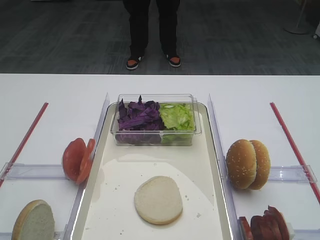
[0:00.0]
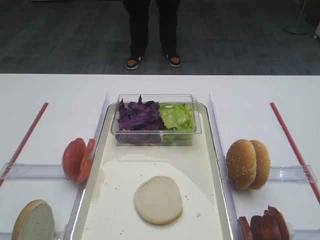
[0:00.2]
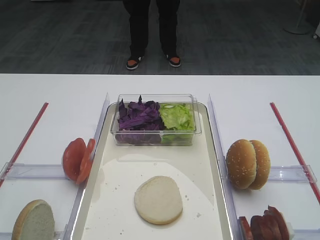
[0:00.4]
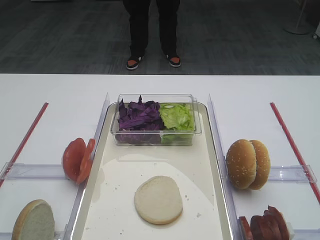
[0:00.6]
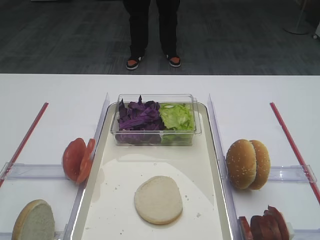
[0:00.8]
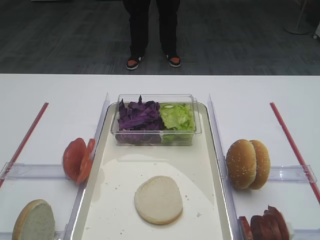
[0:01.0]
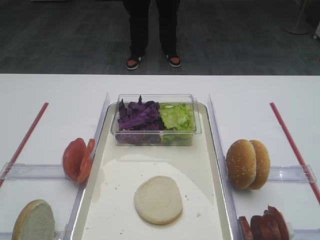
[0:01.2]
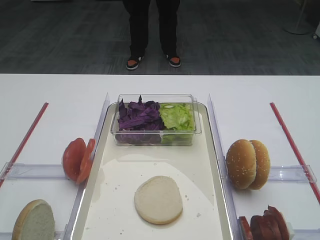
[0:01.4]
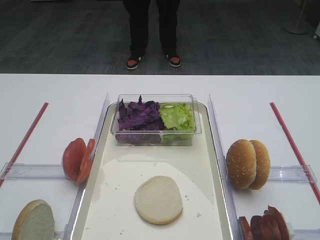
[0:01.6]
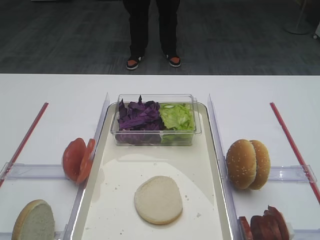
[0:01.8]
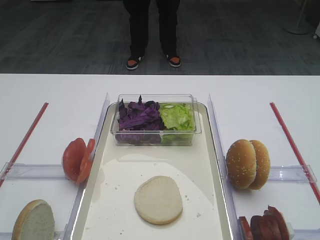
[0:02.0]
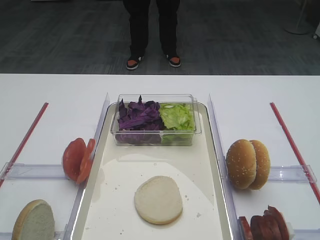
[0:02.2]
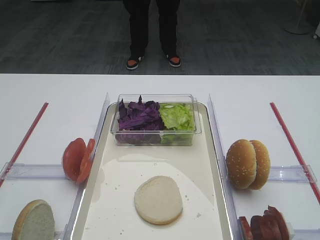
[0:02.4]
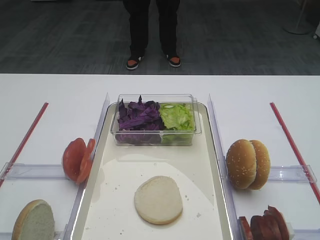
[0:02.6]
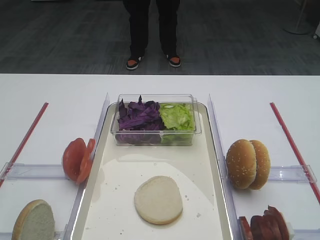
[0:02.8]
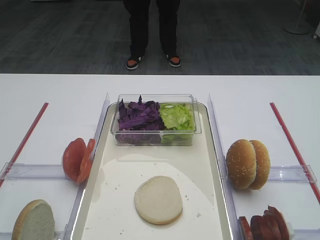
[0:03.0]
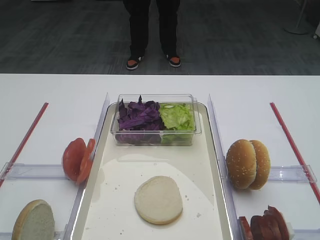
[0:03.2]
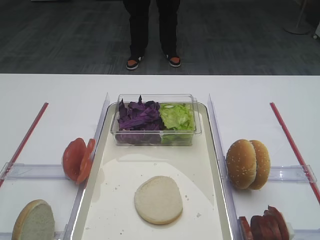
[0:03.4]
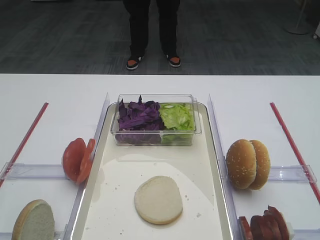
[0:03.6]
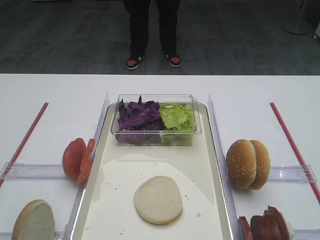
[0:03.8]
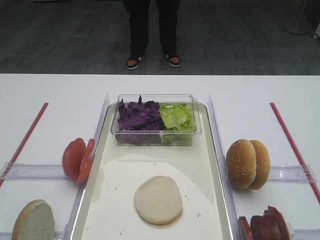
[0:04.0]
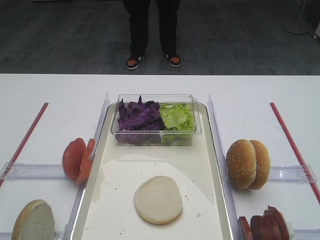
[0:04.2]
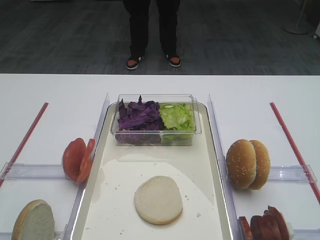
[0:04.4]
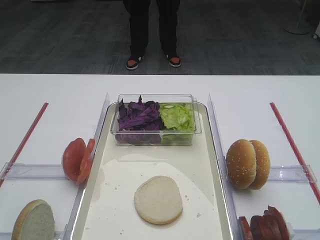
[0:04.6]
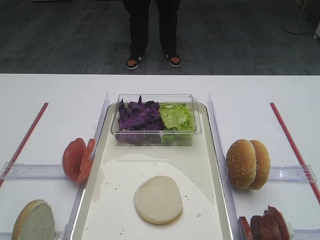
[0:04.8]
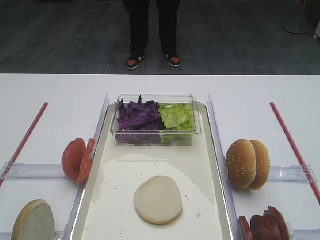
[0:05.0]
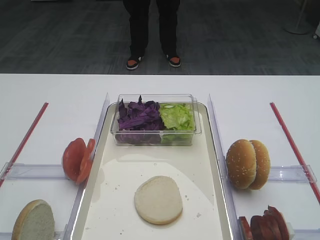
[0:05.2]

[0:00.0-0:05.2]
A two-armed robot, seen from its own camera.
1.8 to 5.2 s: The two grippers keep their place.

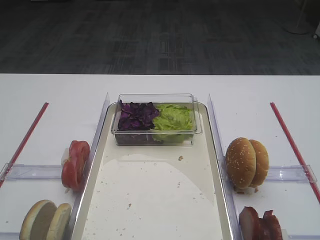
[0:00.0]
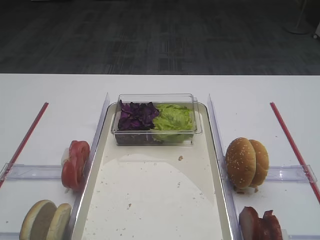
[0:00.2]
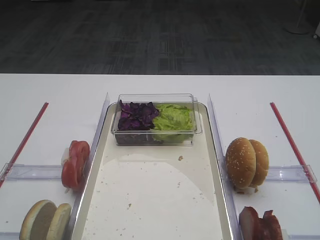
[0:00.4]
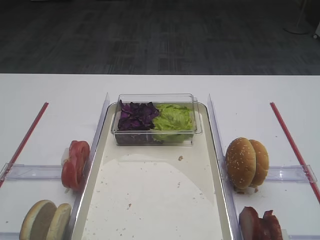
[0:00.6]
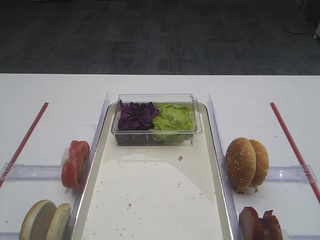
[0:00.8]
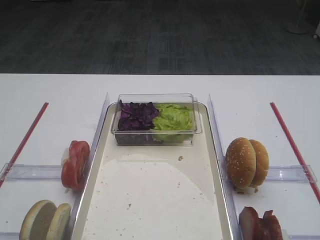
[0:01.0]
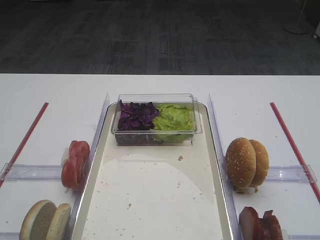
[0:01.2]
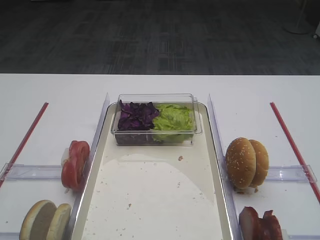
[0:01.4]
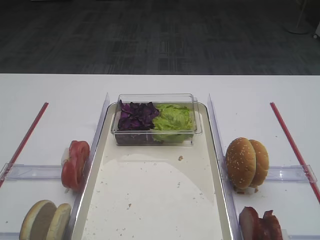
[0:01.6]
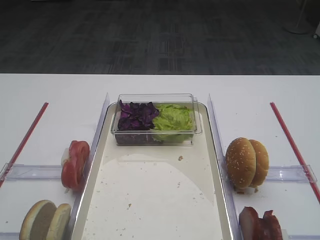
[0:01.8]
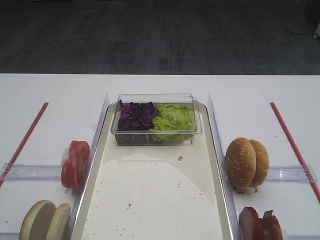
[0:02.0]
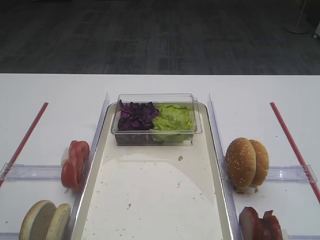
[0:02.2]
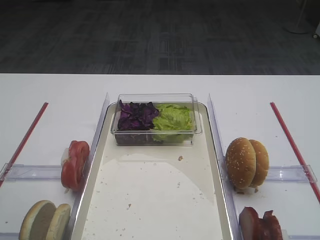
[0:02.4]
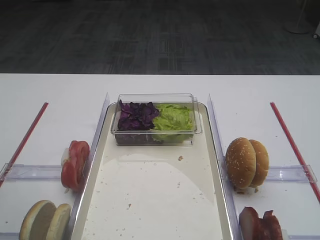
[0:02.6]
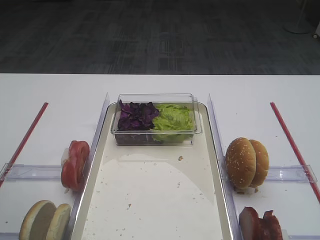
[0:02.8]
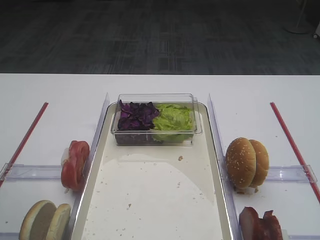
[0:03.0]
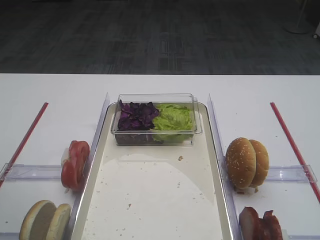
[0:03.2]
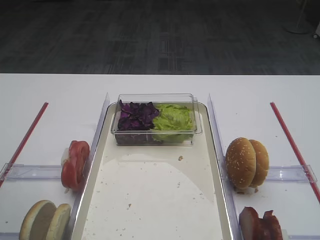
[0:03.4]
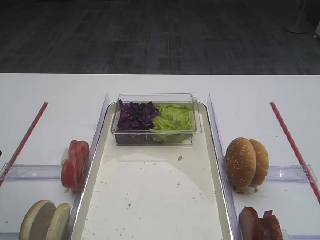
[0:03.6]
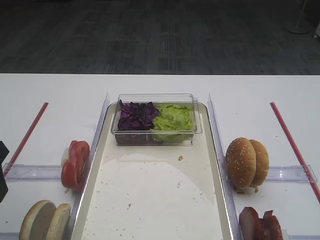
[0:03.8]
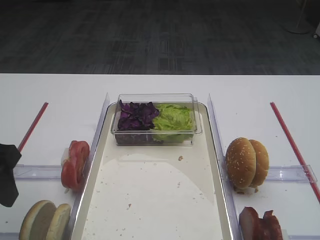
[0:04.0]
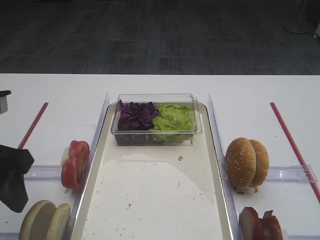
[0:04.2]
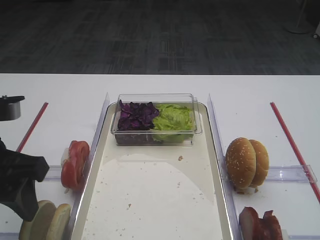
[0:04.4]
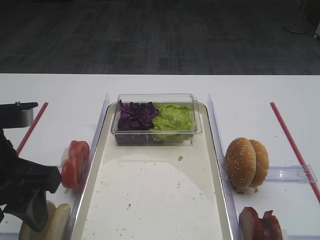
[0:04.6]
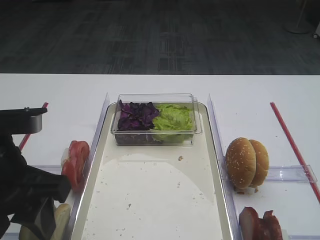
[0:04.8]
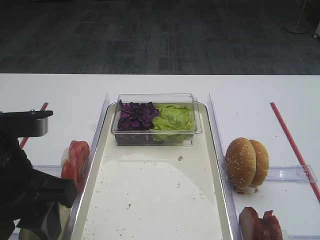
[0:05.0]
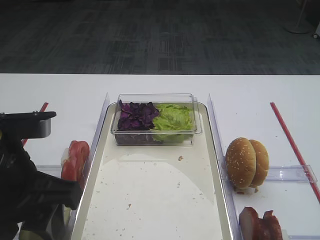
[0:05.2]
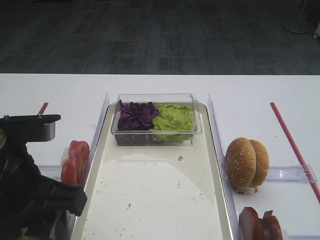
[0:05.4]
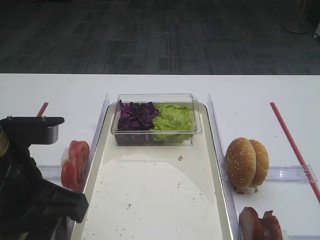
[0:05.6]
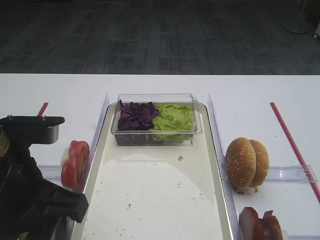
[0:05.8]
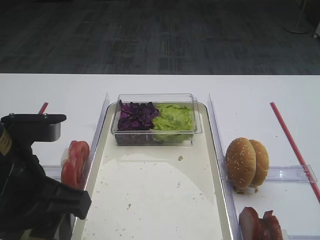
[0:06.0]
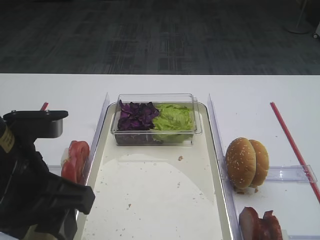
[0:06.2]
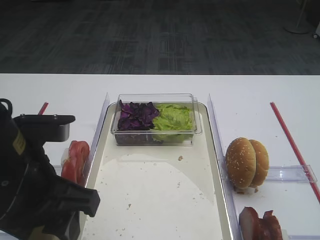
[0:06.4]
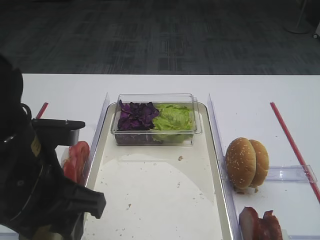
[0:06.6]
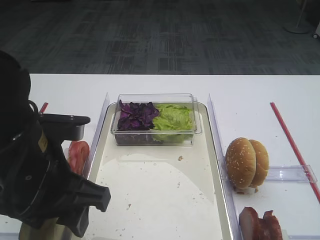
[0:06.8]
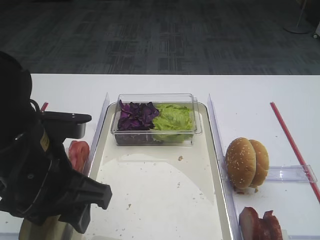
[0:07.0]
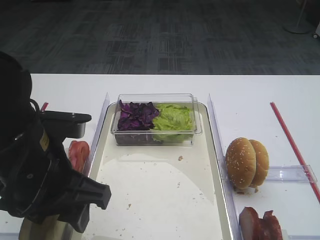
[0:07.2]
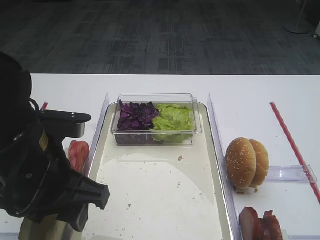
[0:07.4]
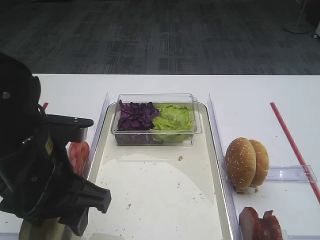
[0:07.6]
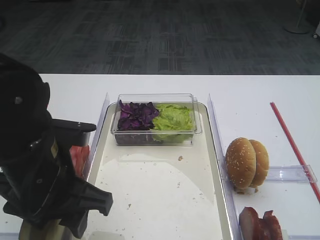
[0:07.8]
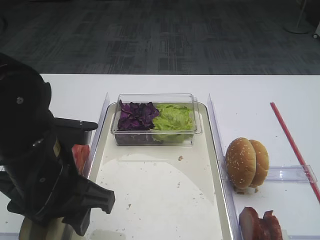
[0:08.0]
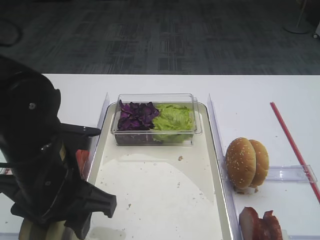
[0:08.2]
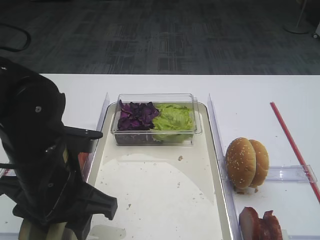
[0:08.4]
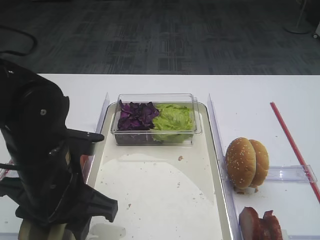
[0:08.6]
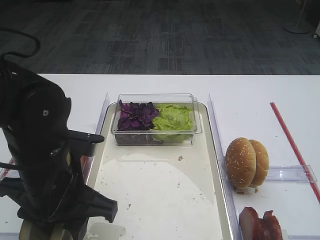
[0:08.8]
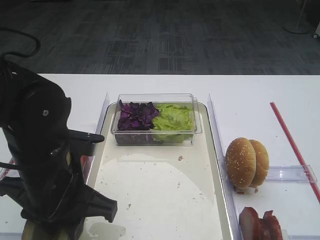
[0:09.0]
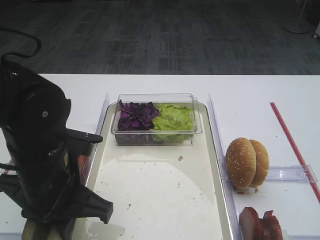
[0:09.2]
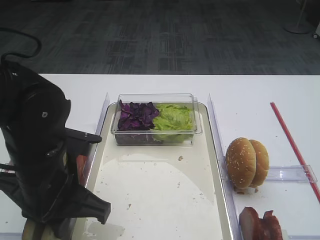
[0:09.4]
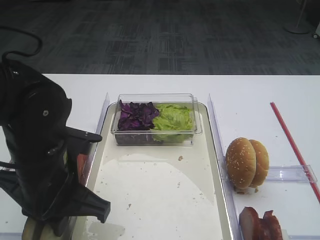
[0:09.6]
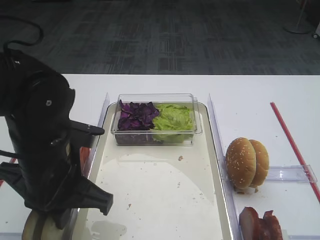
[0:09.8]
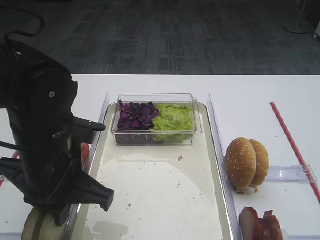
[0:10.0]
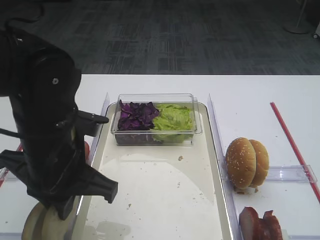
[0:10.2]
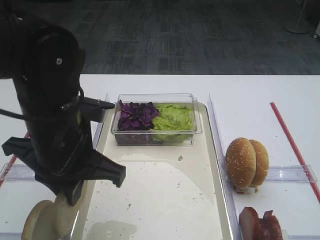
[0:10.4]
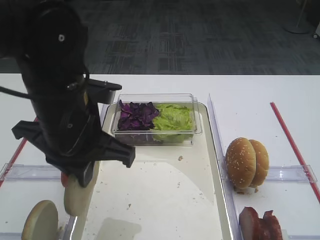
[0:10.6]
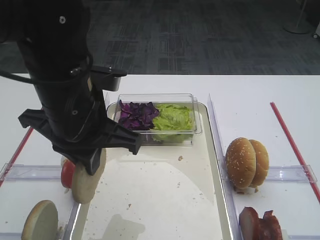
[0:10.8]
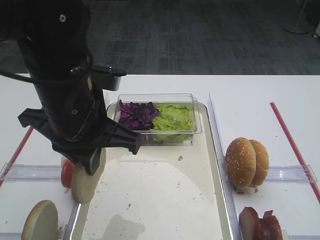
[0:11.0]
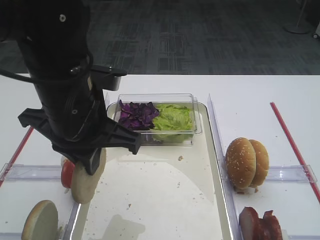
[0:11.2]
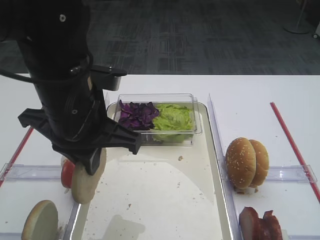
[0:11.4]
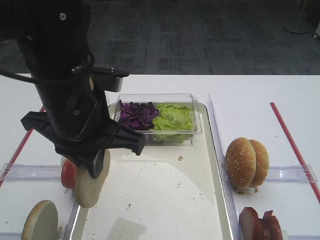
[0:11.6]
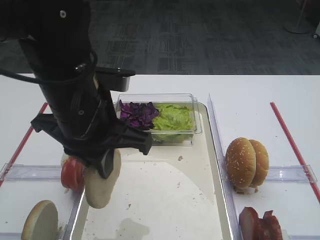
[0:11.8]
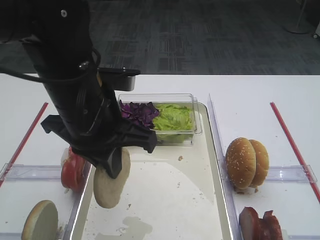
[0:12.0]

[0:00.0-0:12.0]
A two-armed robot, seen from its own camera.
Step, 0.0 to 10.2 s: Pick up the bread slice with the left gripper.
3.0 to 4.4 s: The left gripper travels to the right by some 5 cm.
4.4 to 6.0 s: The left gripper heads to the right, covering roughly 5 cm.
6.0 to 7.6 s: The grippers move only a little.
7.6 to 9.0 s: The grippers stay close to where they were, moving slightly.
9.0 to 10.4 s: The left gripper ends up roughly 5 cm from where it was, and closes its fingers.
10.4 to 12.0 s: The grippers make only small movements.

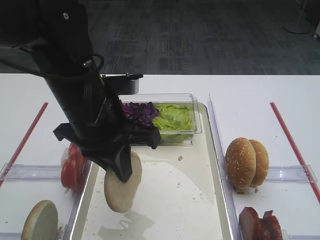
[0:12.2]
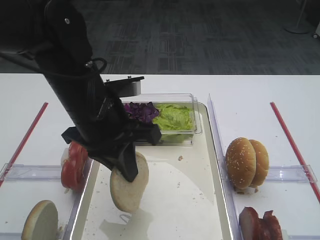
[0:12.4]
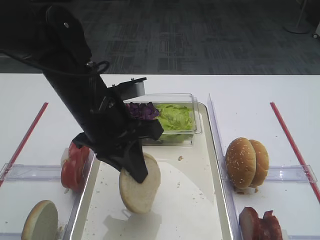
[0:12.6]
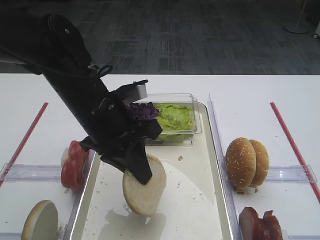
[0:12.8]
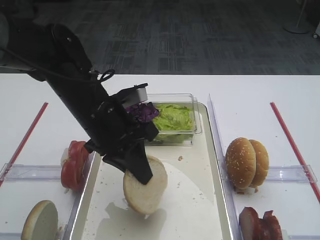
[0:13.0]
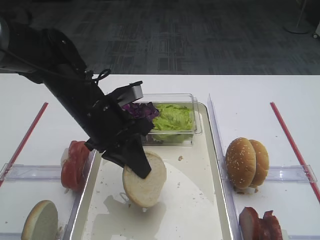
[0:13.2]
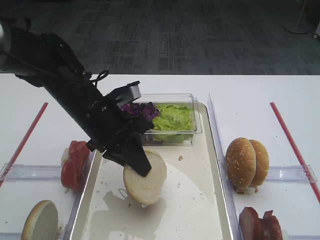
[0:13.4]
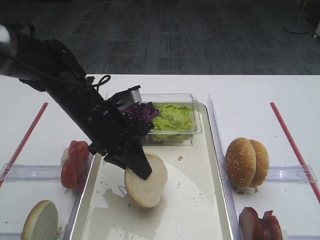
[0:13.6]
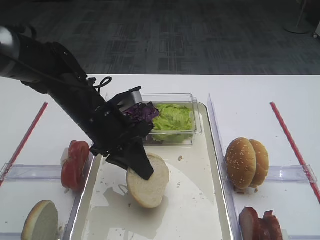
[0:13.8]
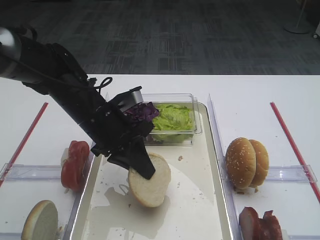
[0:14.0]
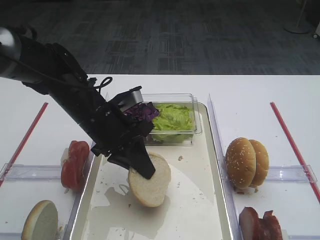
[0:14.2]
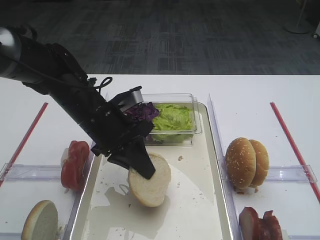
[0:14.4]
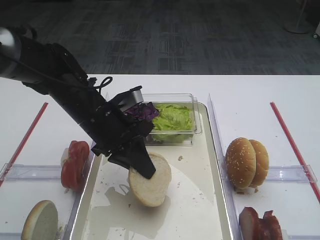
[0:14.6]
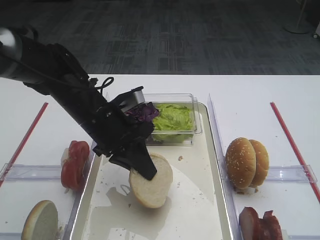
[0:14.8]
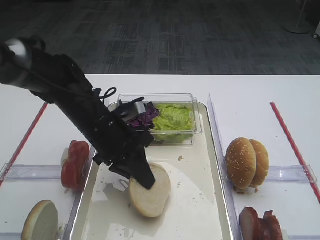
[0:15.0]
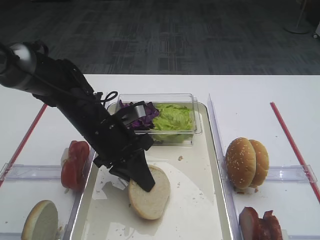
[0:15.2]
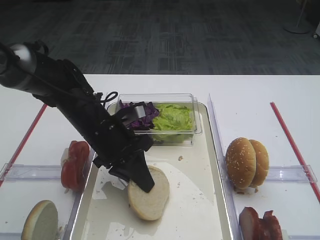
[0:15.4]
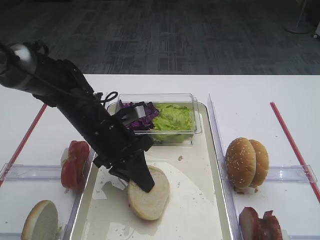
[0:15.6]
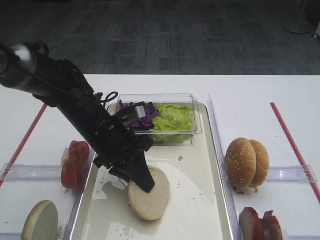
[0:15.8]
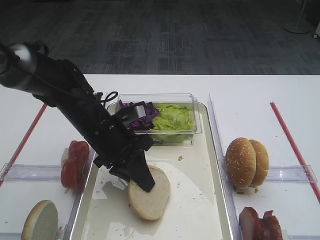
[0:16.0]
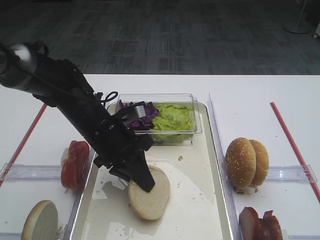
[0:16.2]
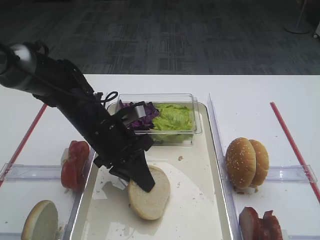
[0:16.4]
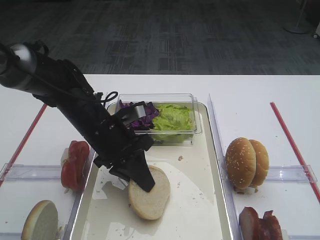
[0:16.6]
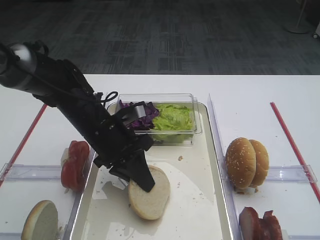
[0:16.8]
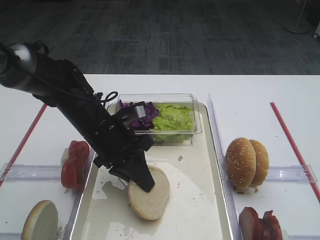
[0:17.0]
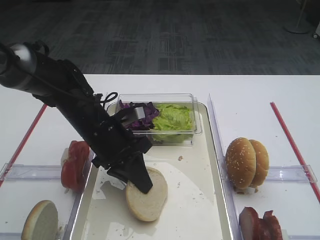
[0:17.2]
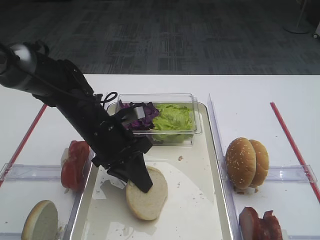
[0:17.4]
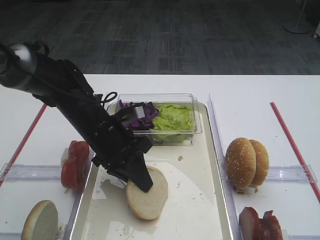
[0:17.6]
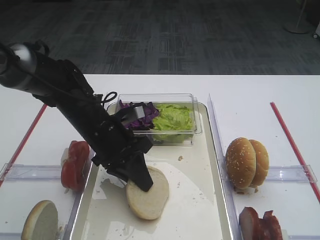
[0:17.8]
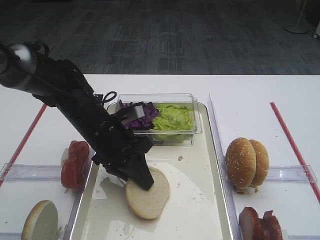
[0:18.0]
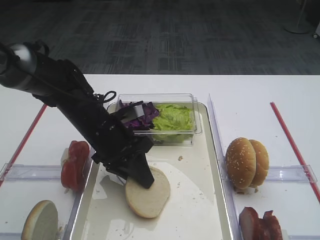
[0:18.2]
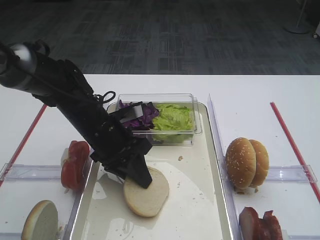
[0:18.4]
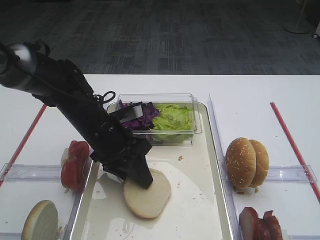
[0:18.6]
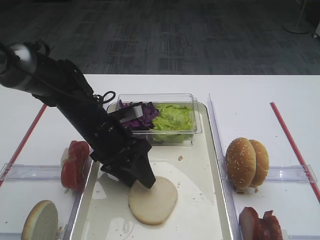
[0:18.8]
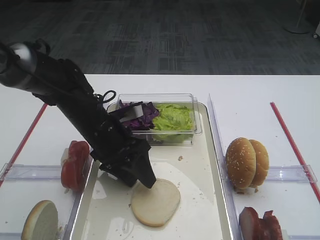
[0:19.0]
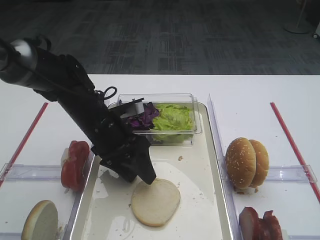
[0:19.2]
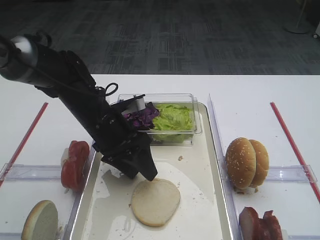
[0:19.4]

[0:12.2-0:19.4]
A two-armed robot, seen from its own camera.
12.2 to 13.6 s: The left gripper is displaced downward and forward by roughly 10 cm.
13.6 to 15.0 s: The grippers stay close to where they were, moving slightly.
15.0 to 16.6 s: Both grippers stay put.
16.6 to 18.0 s: Both grippers stay put.
18.0 to 19.4 s: The left gripper opens its fingers.
